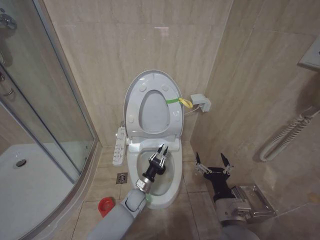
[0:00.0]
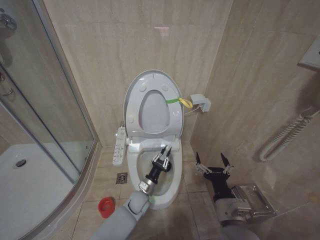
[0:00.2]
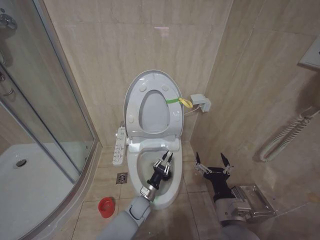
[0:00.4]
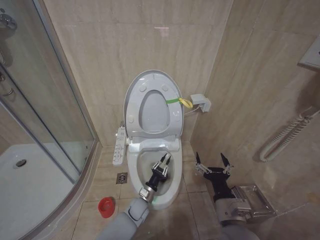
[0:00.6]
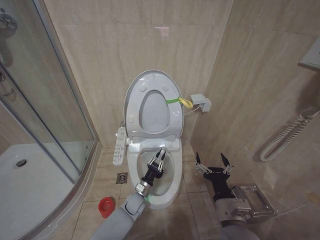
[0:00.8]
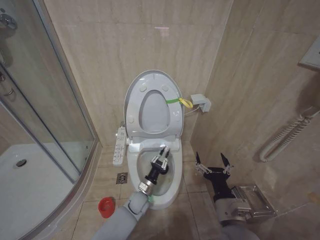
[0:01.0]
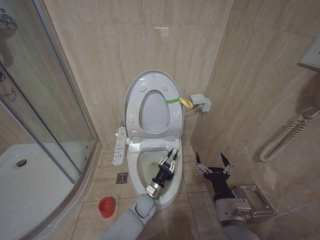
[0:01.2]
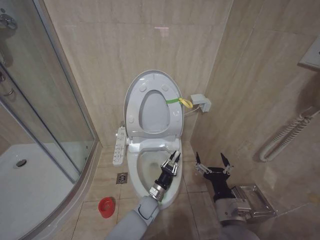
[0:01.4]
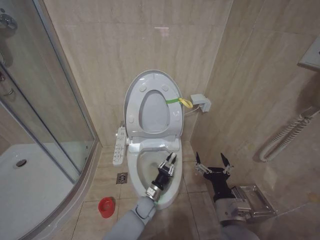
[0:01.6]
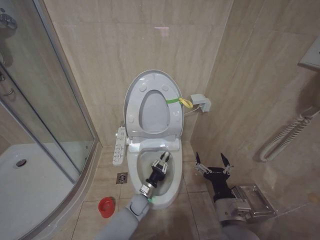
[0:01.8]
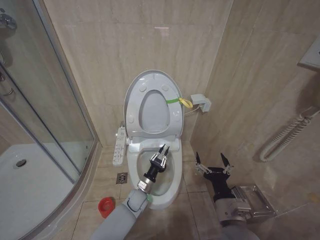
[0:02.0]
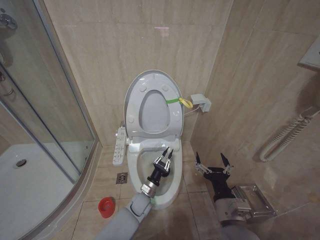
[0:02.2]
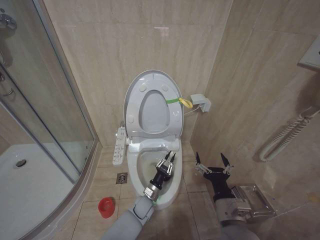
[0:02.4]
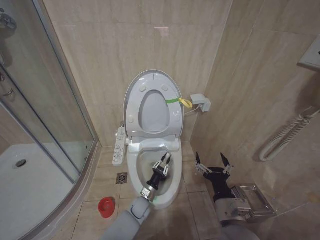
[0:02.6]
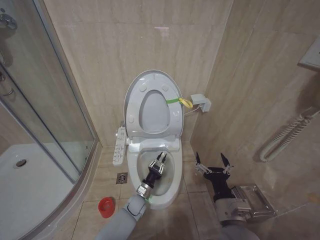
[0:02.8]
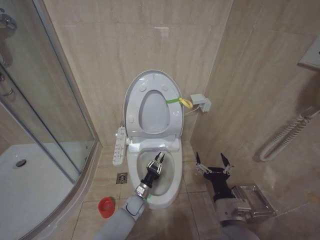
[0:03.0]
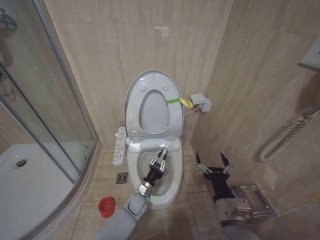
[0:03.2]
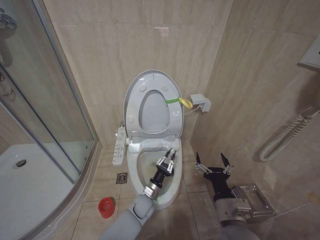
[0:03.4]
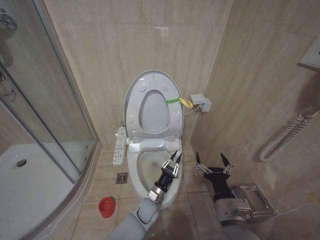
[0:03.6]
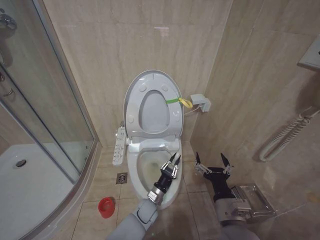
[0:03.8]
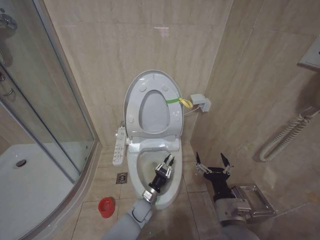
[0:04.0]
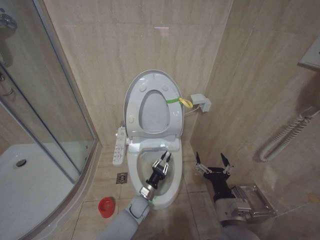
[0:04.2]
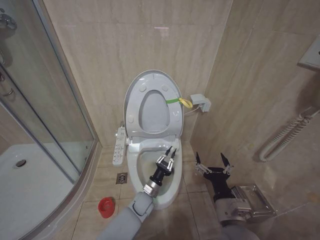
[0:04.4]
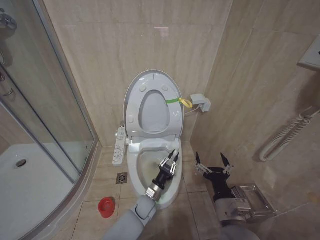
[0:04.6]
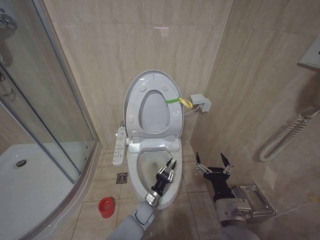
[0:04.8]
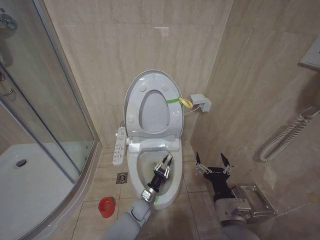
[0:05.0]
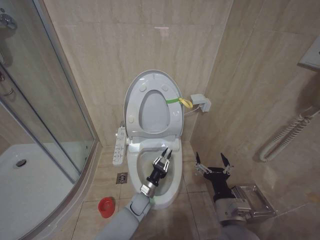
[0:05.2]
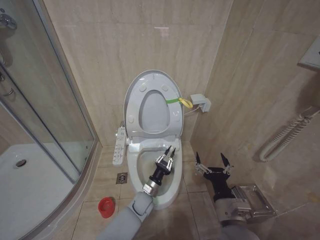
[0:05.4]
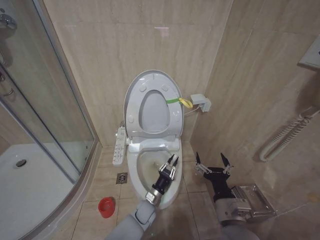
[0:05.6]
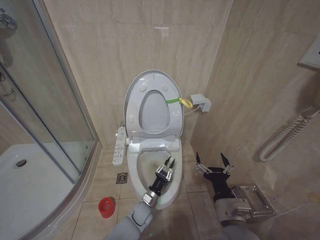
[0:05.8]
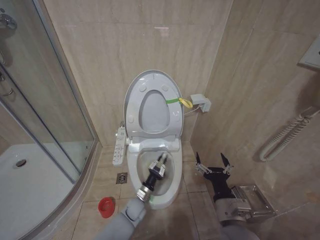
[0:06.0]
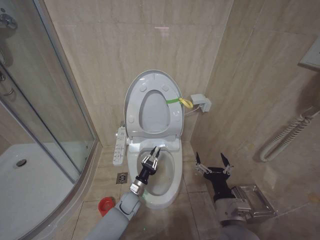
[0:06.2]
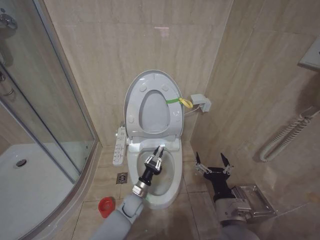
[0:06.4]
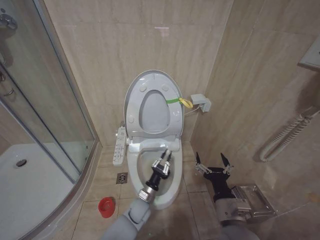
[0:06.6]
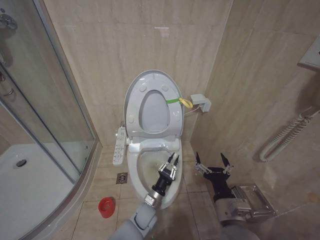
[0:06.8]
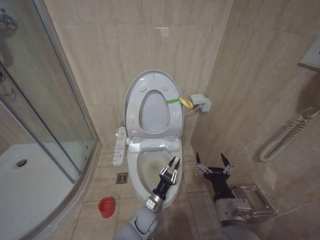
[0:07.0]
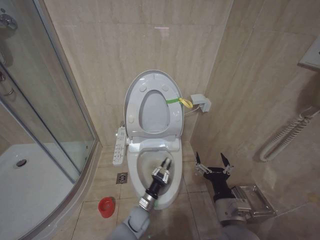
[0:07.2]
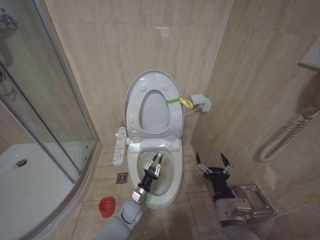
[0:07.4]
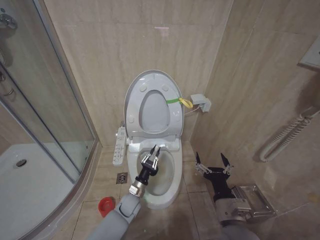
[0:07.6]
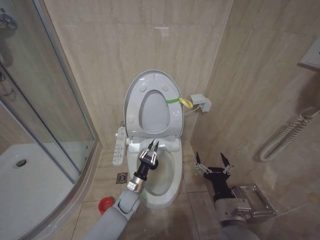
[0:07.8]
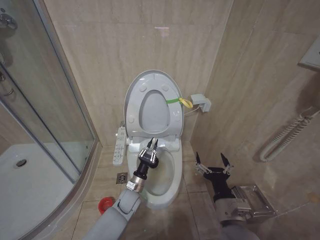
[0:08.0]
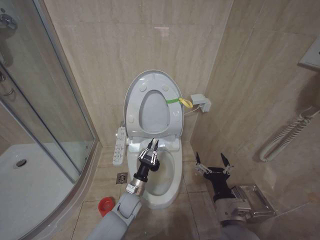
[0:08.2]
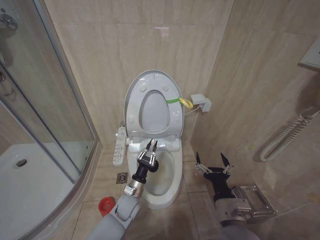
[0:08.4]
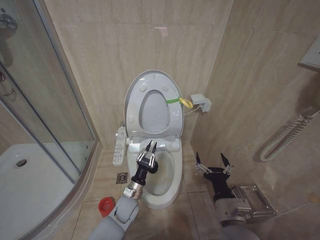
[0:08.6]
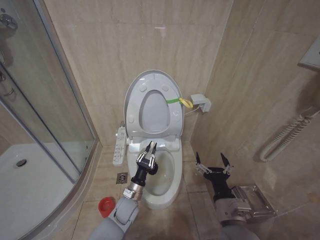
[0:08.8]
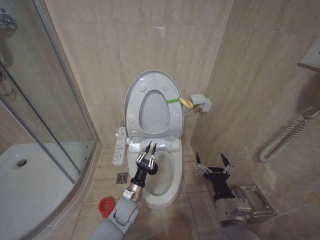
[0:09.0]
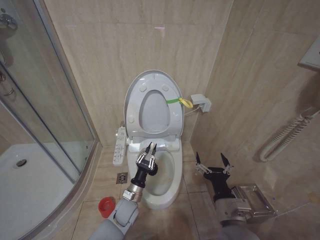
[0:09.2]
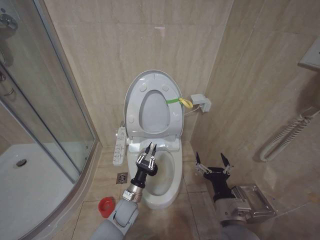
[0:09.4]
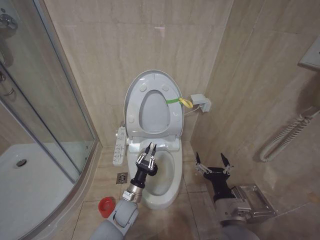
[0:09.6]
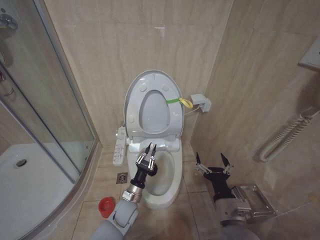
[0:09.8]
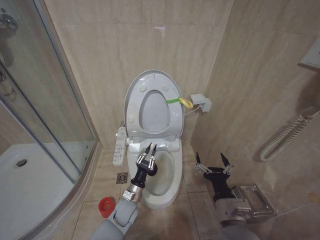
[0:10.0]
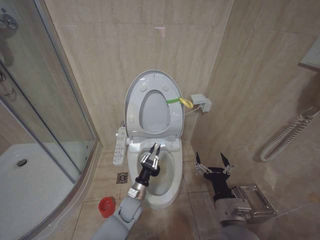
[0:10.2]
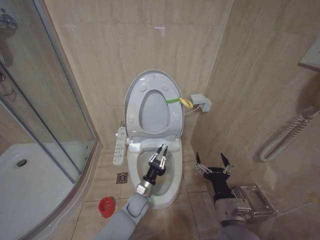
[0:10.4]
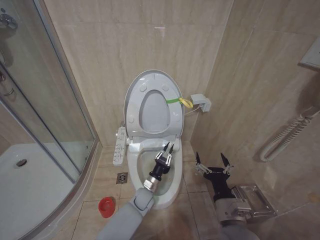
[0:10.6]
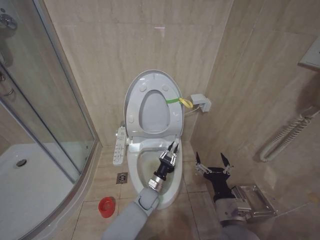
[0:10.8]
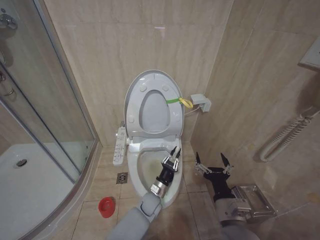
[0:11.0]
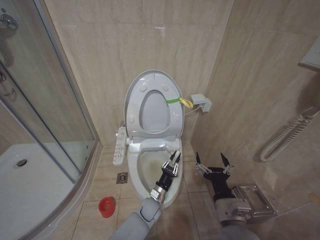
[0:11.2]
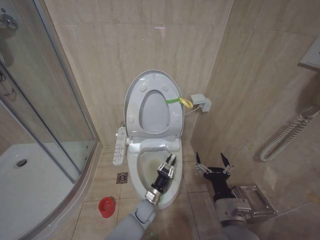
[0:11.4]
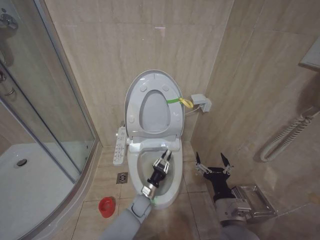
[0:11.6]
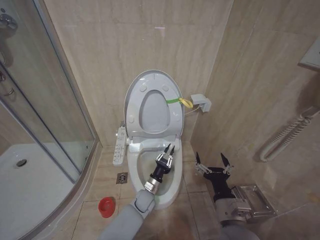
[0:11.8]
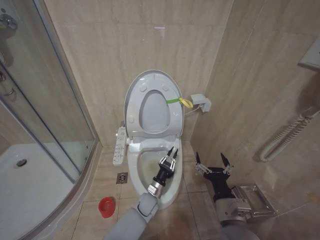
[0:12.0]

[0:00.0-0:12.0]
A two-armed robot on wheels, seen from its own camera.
Task of the whole recording: Open the toilet lid, clean the toilet bowl with a toilet brush, close the toilet lid, and flush.
0:00.0 to 0:01.6: The left gripper goes approximately 5 cm to the right.
0:01.6 to 0:03.0: The left gripper goes about 5 cm to the left.
0:03.0 to 0:04.4: The left gripper heads upward, covering approximately 5 cm.
0:04.4 to 0:06.0: The left gripper moves up and down over roughly 5 cm, changing direction 2 times.
0:06.0 to 0:07.6: The left gripper swings left and right, about 10 cm each way, with 2 reversals.
0:07.6 to 0:09.0: The left gripper shifts some 5 cm upward.
0:09.0 to 0:10.4: The left gripper changes place by approximately 5 cm.
0:10.4 to 0:12.0: The left gripper shifts by some 5 cm.

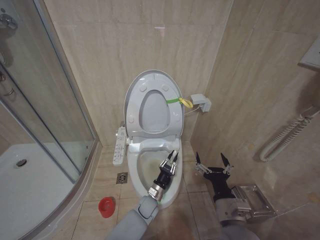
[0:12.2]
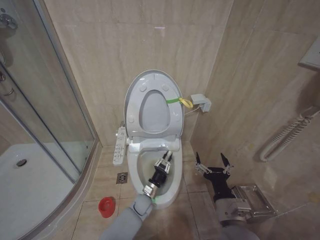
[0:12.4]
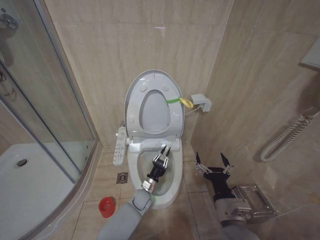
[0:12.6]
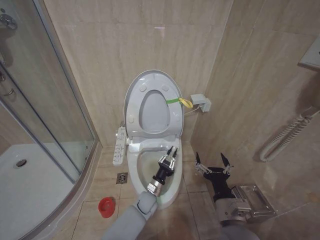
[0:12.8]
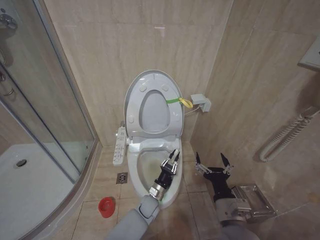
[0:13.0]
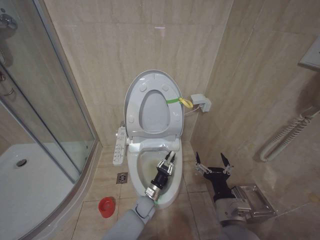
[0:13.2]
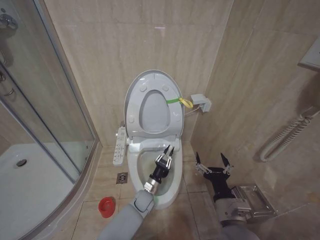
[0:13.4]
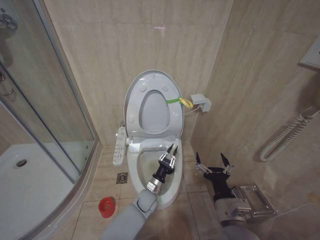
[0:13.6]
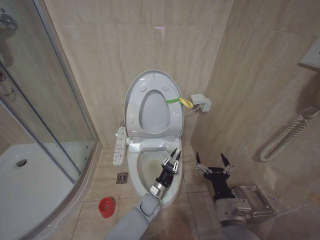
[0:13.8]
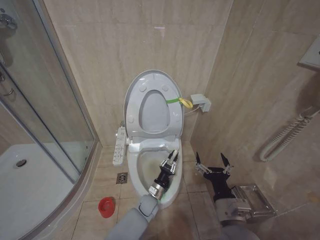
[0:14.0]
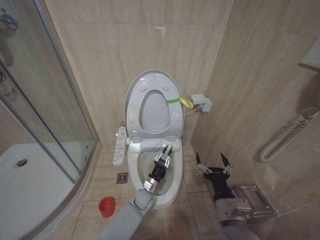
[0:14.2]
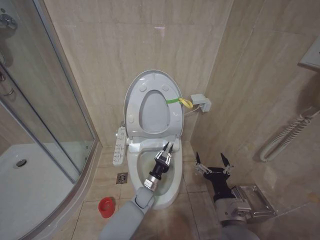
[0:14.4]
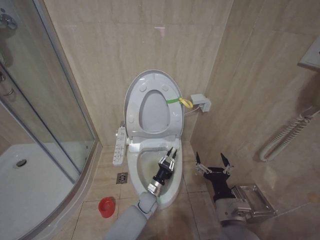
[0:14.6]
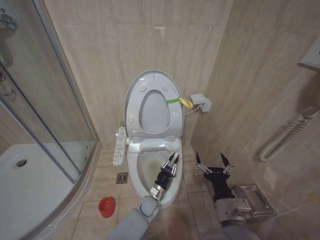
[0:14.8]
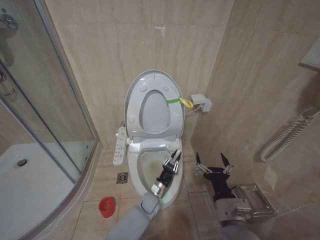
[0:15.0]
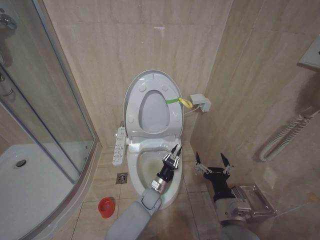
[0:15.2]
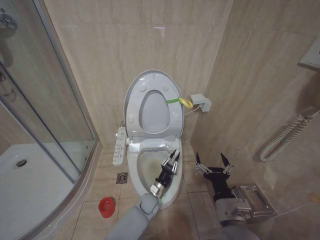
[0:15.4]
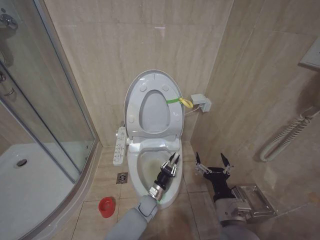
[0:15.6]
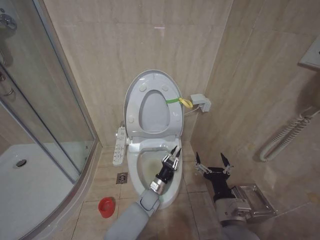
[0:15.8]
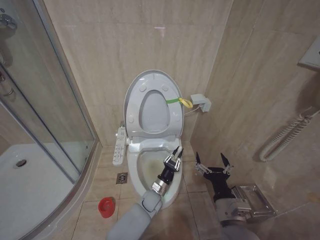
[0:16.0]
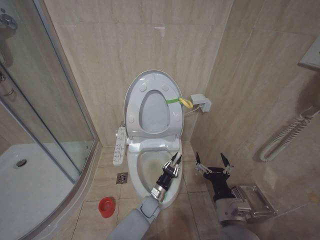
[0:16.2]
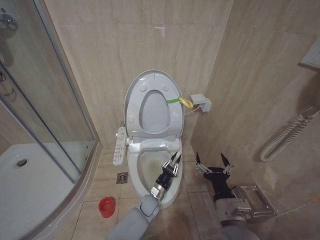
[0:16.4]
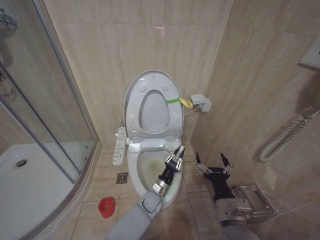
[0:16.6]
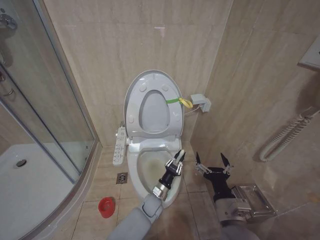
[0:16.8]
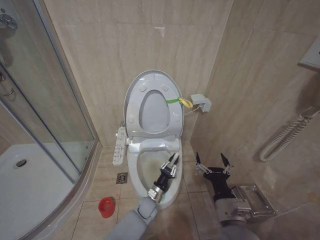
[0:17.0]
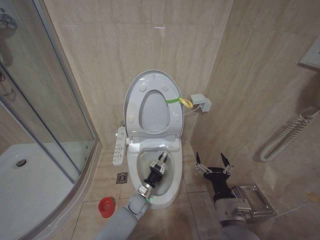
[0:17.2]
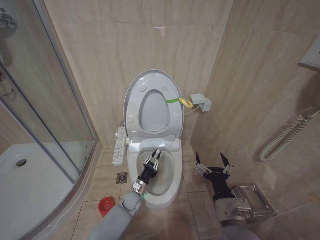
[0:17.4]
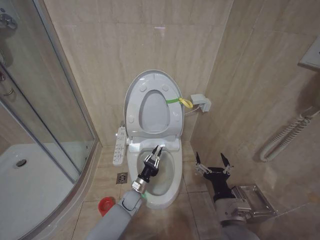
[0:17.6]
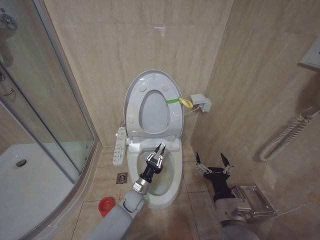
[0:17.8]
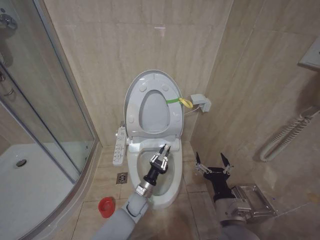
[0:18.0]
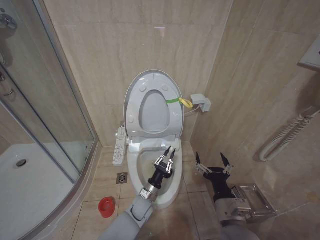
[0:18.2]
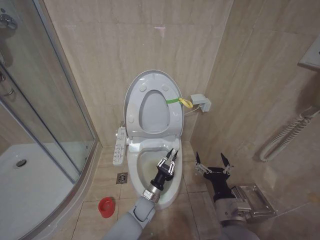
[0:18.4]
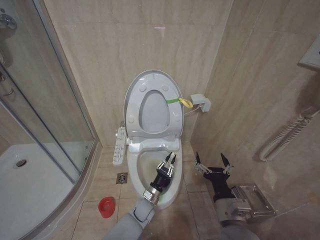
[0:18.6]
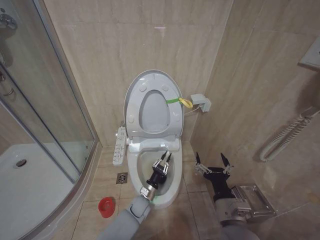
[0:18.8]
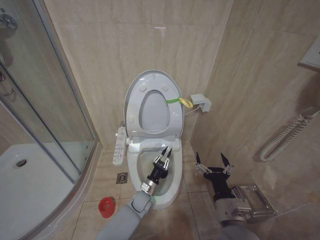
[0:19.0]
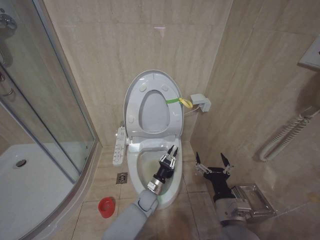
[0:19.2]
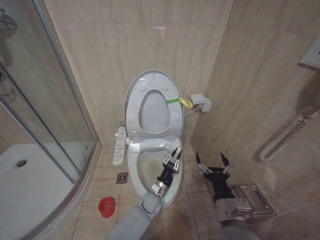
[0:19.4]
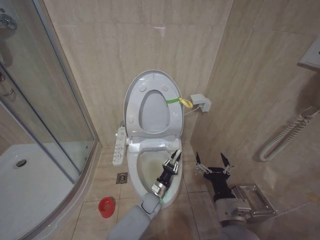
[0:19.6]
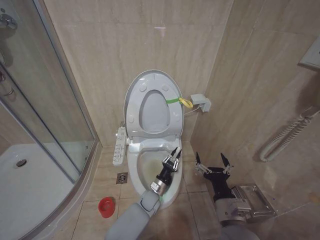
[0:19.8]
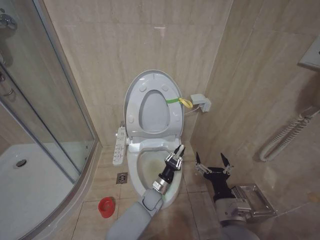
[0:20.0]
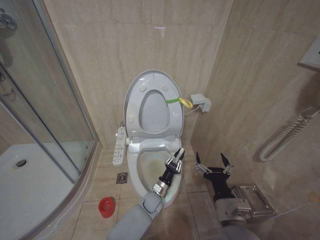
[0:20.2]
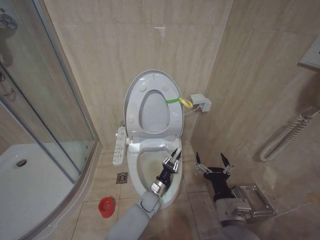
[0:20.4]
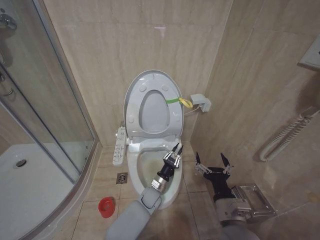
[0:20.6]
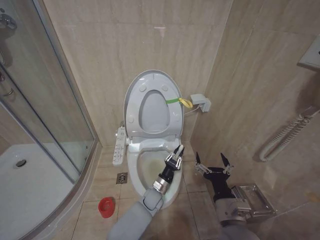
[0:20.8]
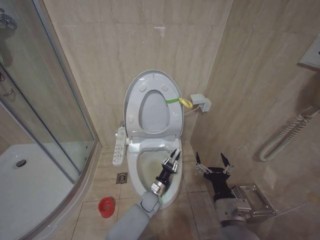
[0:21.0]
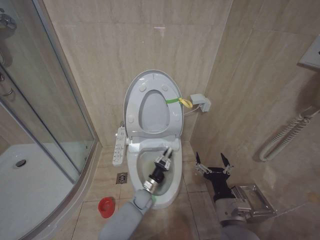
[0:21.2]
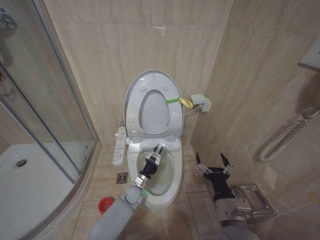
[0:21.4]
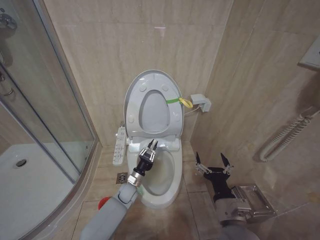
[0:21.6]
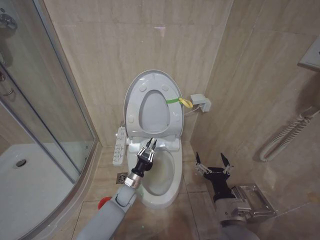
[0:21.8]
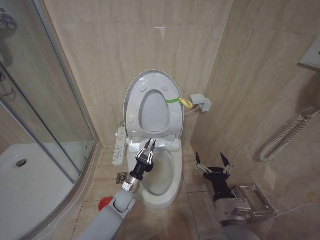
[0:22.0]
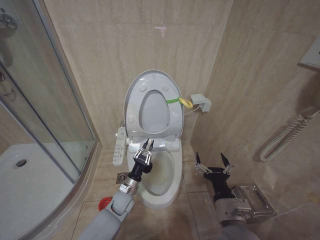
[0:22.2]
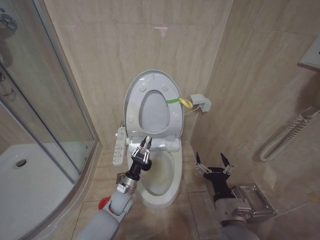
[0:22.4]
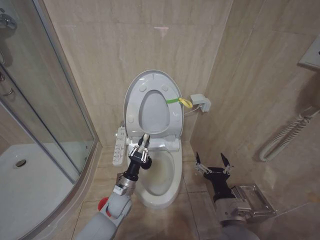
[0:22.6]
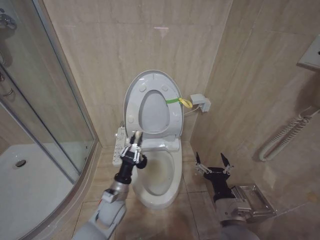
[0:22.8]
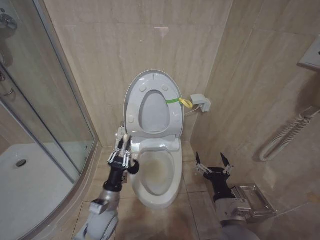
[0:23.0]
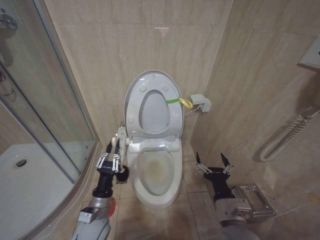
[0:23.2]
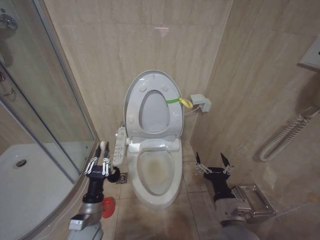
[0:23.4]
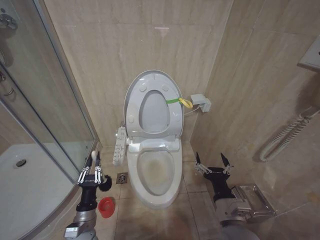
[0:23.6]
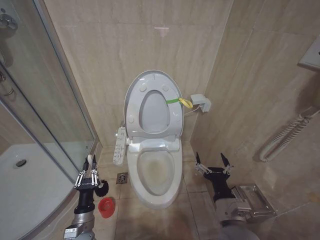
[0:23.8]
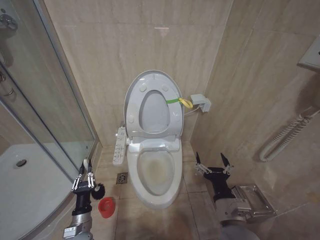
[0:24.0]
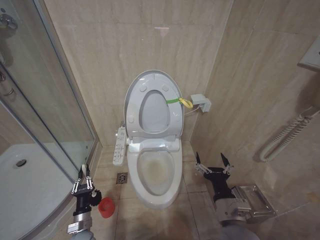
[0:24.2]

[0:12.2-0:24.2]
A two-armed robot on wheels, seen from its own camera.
Task of the whole recording: Open the toilet lid, clean the toilet bowl with a toilet brush, close the toilet lid, and flush.
0:13.8 to 0:15.2: There are only small adjustments of the grippers.
0:18.2 to 0:19.8: The left gripper changes place by roughly 5 cm.
0:19.8 to 0:21.2: There are only small adjustments of the grippers.
0:21.2 to 0:22.6: The left gripper moves upward and to the left, some 15 cm.
0:22.6 to 0:24.2: The left gripper heads to the left, backward and downward, covering approximately 20 cm.
